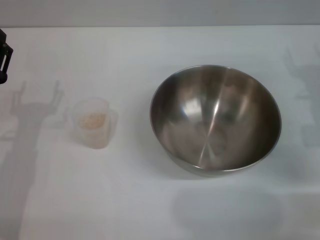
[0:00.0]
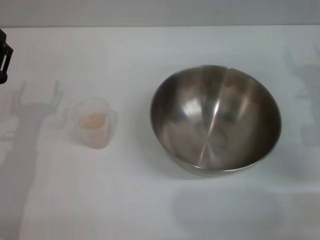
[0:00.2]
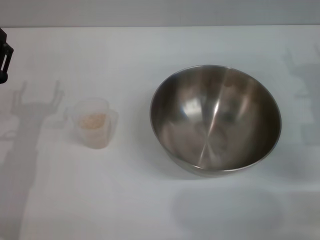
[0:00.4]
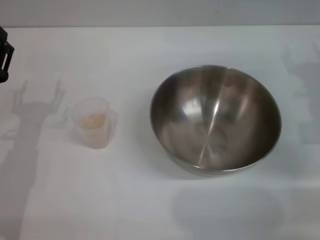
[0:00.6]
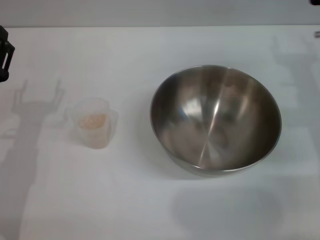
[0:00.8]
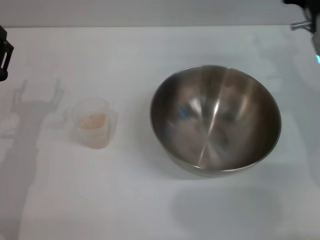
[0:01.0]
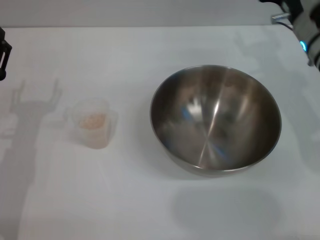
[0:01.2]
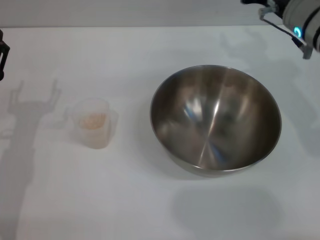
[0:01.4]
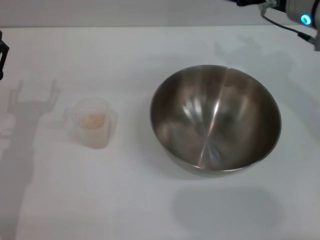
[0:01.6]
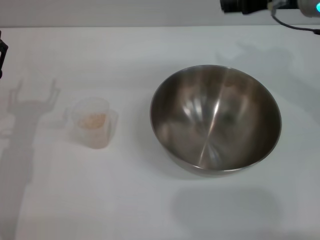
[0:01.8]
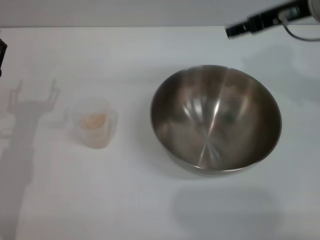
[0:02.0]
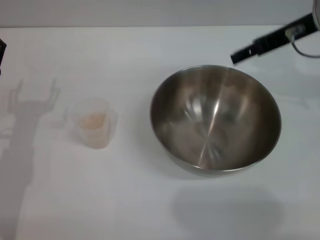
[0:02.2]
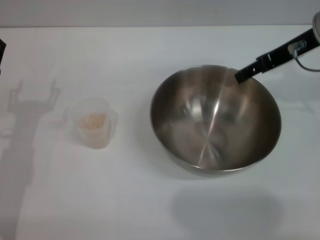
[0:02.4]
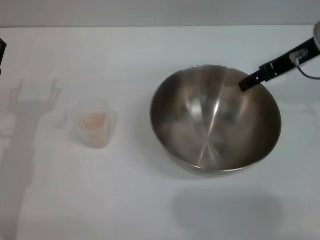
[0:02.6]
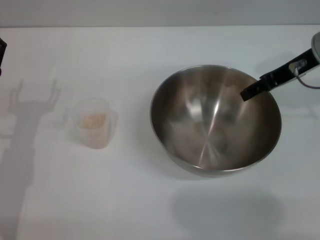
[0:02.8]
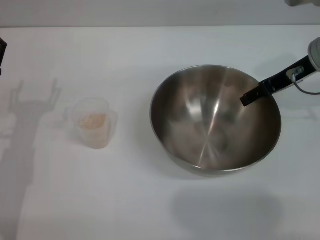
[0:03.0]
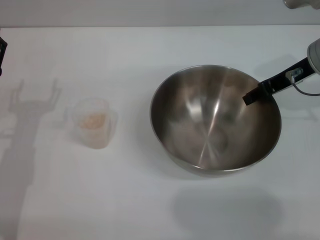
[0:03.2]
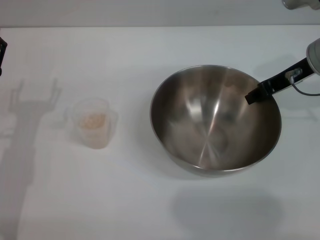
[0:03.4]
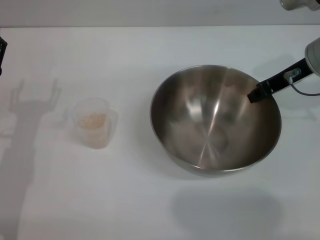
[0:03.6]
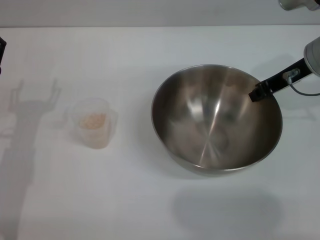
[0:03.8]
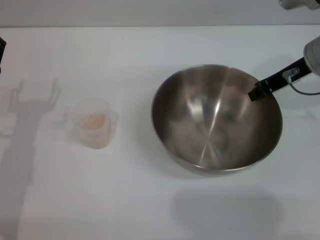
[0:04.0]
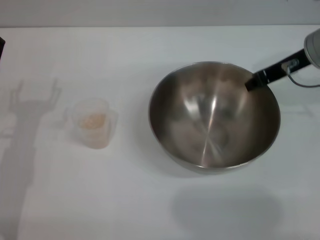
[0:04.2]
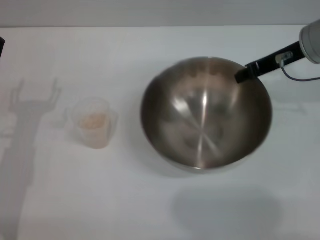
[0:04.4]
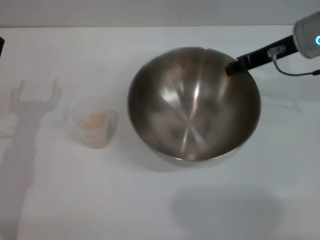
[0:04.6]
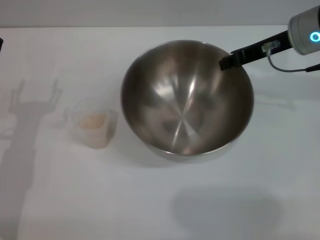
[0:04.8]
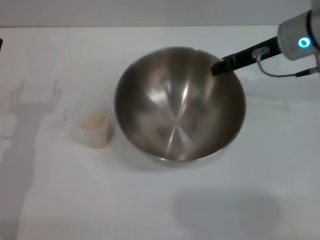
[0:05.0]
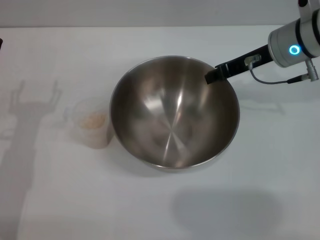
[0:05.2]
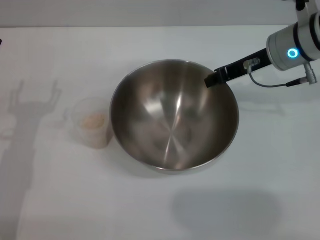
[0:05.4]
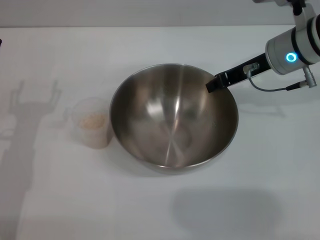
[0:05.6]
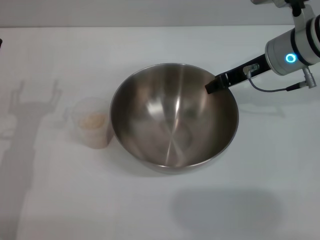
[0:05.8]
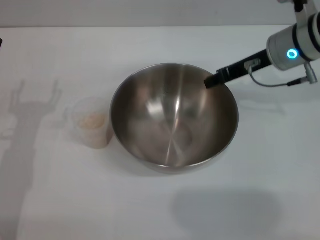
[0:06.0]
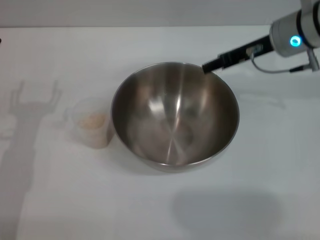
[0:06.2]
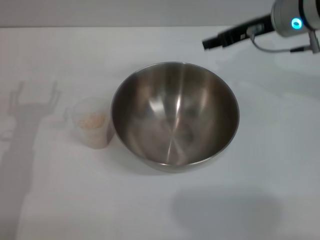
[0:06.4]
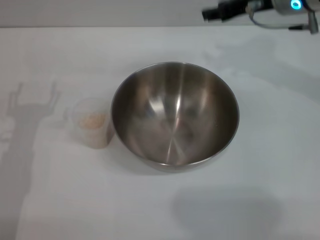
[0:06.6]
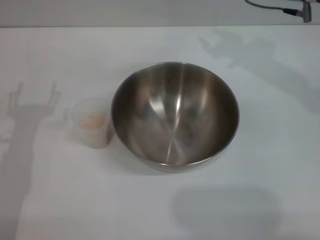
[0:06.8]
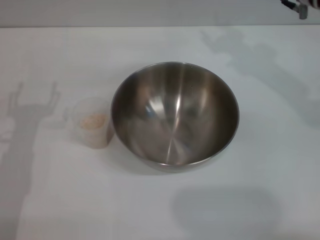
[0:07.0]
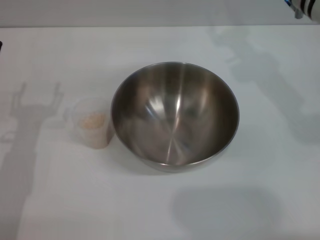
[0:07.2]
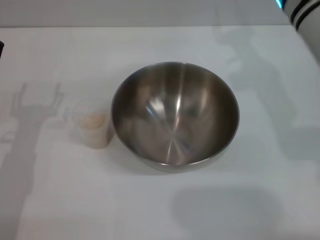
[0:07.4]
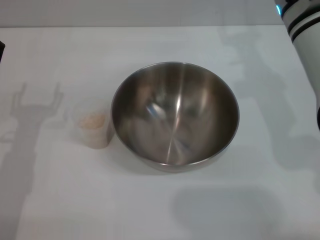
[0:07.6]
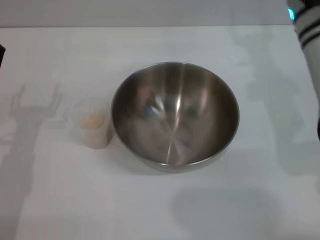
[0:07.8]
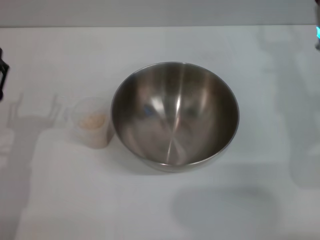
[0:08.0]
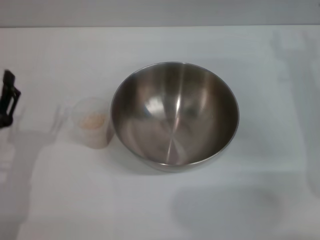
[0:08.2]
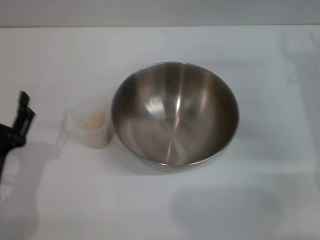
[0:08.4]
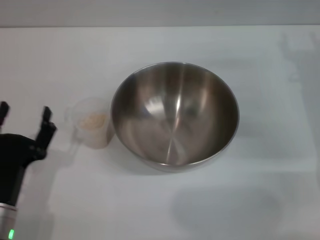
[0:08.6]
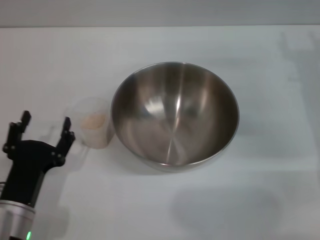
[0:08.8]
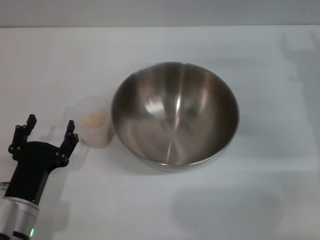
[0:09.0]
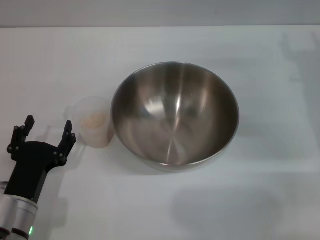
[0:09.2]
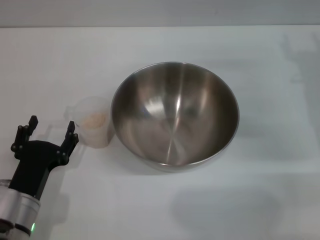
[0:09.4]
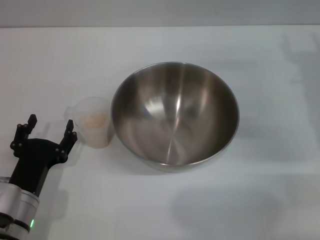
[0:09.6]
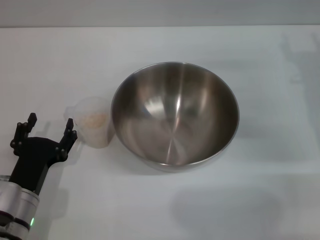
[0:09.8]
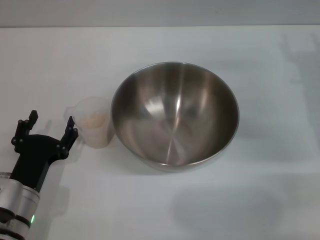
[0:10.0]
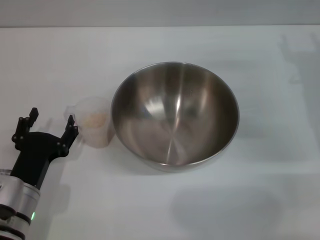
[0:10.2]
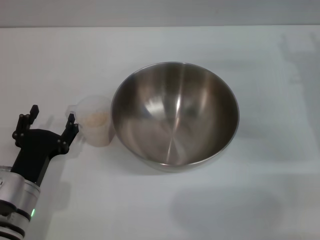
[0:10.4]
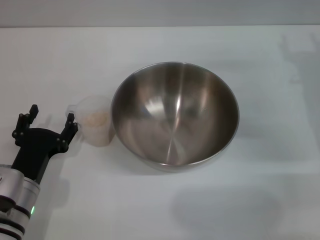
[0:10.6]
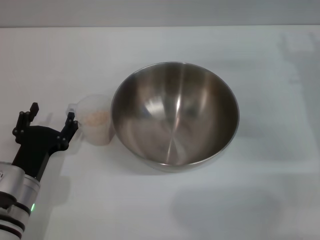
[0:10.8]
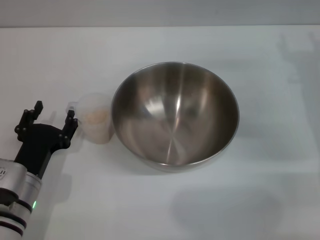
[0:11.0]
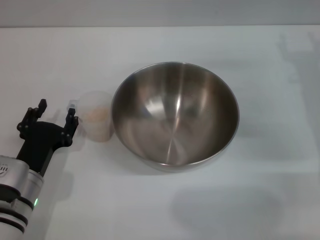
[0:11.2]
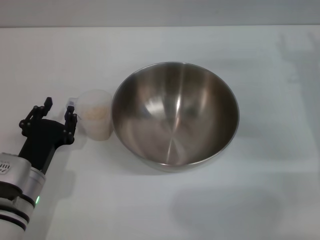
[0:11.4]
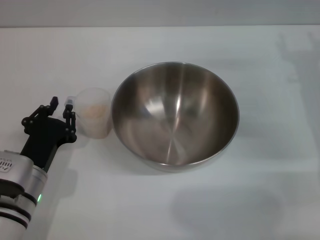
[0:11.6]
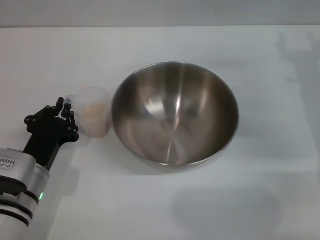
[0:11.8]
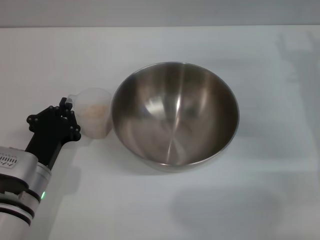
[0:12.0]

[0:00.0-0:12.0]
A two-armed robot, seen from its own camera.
Task of the whole recording: Place the bowl in the middle of the table with one hand and pour the rice from the grain cup into it with the other hand.
Step, 0:00.0 to 0:04.4: Pick up the bowl with the right gripper.
Step, 0:04.8 to 0:06.2: Place the bowl in the center of view with the right gripper.
0:00.0 to 0:01.6: The right gripper goes approximately 15 cm upward, to the left and forward.
0:01.6 to 0:03.0: The right gripper ends up approximately 5 cm from where it was.
0:03.0 to 0:04.4: The right gripper closes.
0:06.0 to 0:07.6: The right gripper changes place by approximately 5 cm, and opens.
0:07.6 to 0:09.0: The left gripper goes some 10 cm backward, downward and to the right. Meanwhile the right gripper goes roughly 15 cm to the right and downward, and opens up.
0:09.0 to 0:10.4: The grippers move only a little.
0:10.4 to 0:12.0: The left gripper closes.

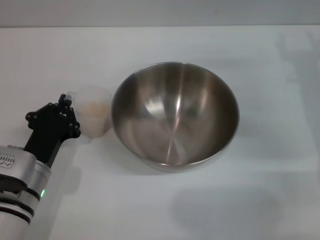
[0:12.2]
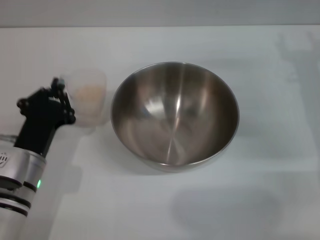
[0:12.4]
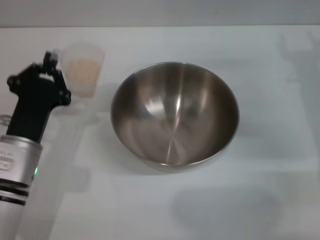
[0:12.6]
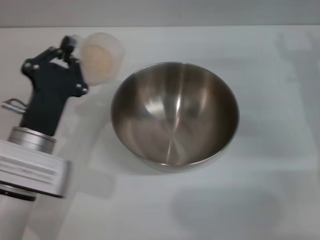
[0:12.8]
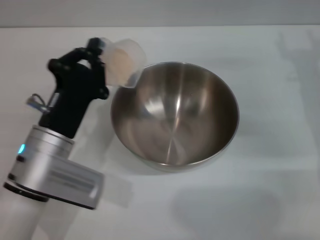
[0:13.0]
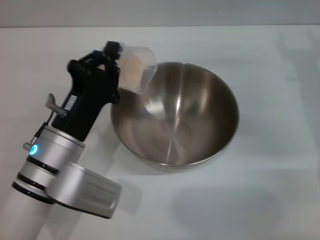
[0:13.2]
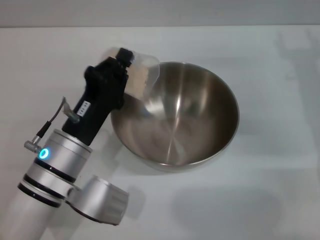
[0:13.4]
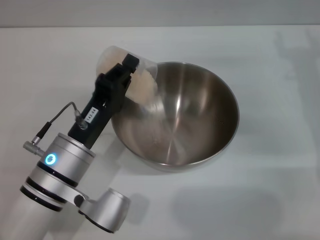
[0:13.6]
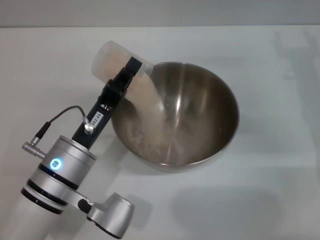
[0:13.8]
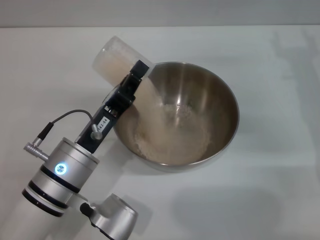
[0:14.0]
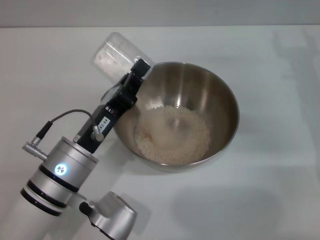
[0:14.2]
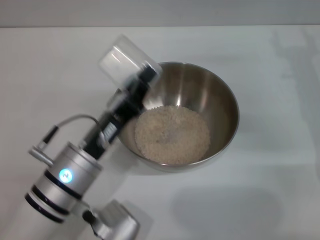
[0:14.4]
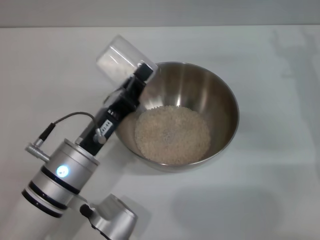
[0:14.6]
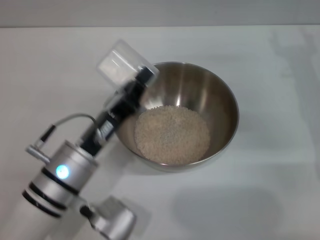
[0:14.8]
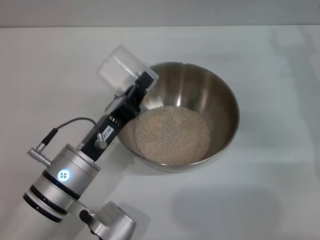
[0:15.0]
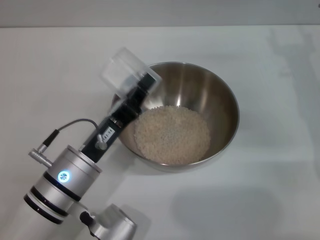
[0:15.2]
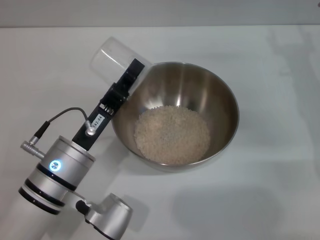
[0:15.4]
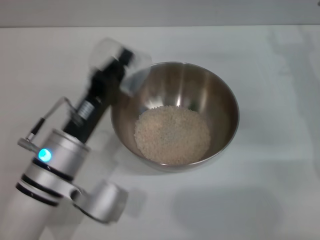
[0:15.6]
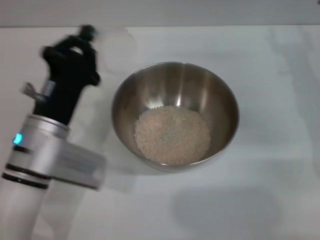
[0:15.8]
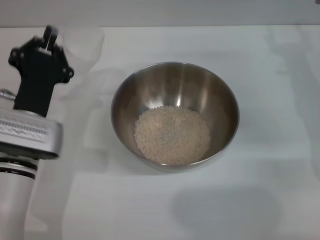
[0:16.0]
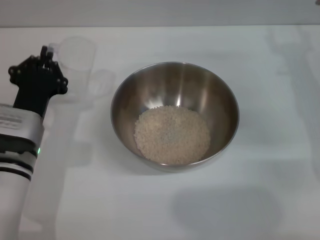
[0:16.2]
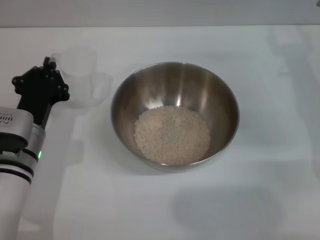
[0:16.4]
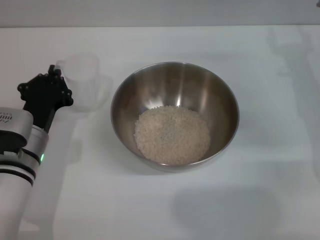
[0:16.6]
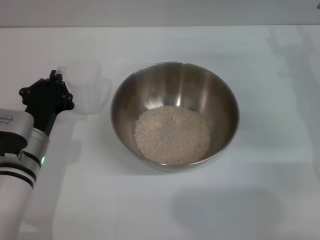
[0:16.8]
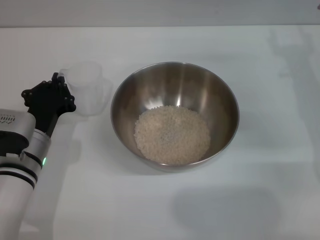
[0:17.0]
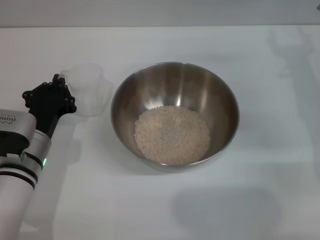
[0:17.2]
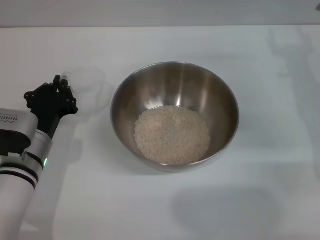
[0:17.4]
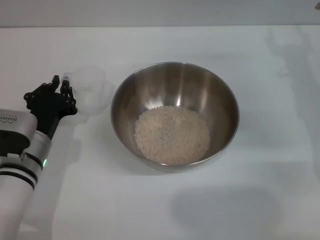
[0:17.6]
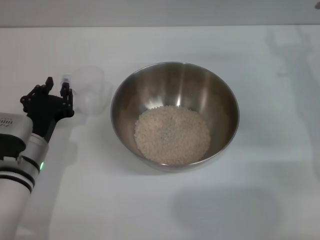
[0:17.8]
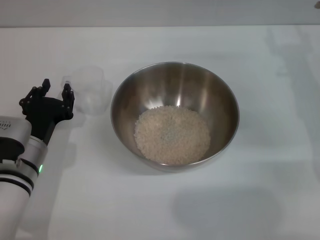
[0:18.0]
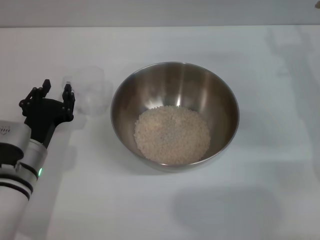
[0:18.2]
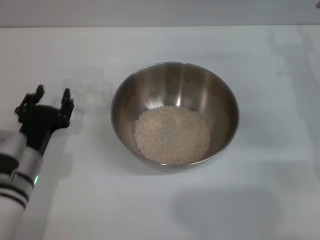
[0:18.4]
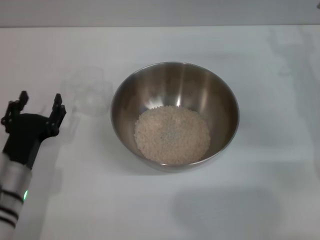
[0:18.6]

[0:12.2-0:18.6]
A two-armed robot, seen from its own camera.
Task of the whole recording: Place the bowl in the middle of the table with one hand and pour the rice from the grain cup into it with the other hand.
Step, 0:12.4 to 0:15.4: Pour the rice from the cup into the bowl with the left gripper.
Step, 0:15.6 to 0:18.4: Place the cup on the table with the left gripper.
0:12.2 to 0:13.8: The left gripper moves to the right, about 5 cm.
0:13.8 to 0:15.4: The grippers stay close to where they were, moving slightly.
0:15.4 to 0:17.0: The left gripper moves to the left, roughly 5 cm.
0:17.0 to 0:18.6: The left gripper is displaced backward by about 5 cm, and opens its fingers.

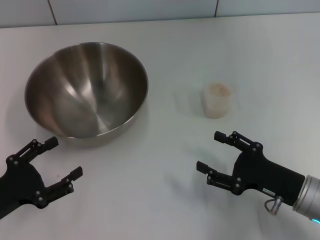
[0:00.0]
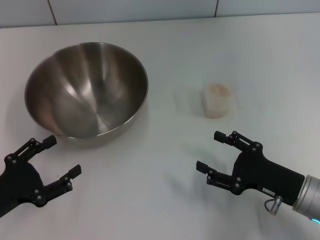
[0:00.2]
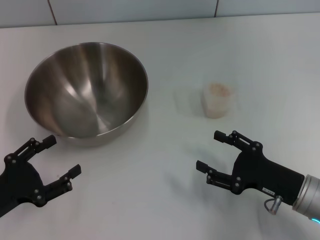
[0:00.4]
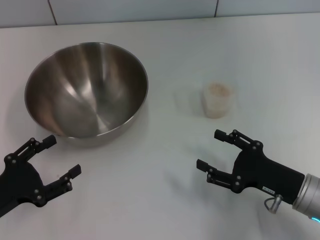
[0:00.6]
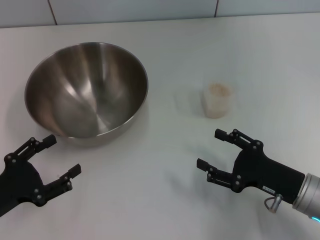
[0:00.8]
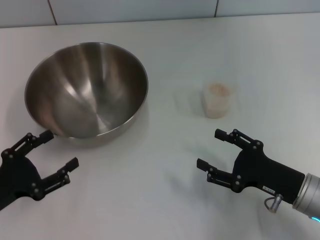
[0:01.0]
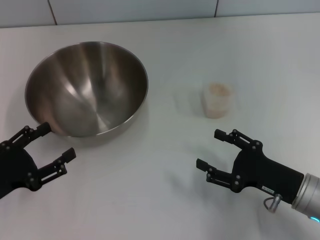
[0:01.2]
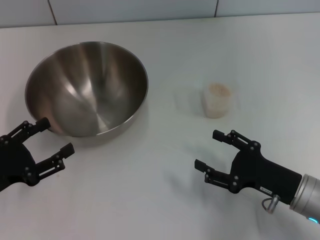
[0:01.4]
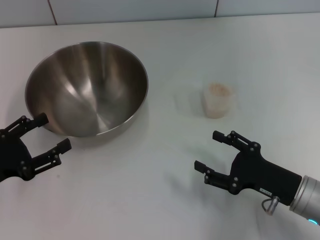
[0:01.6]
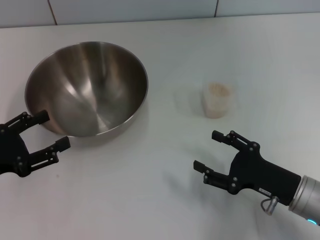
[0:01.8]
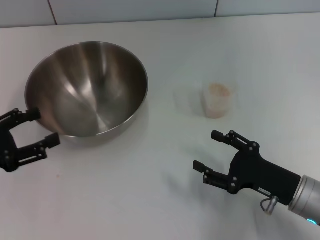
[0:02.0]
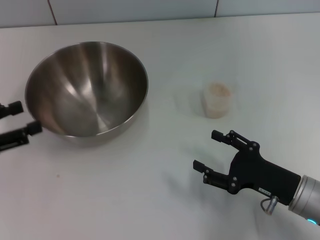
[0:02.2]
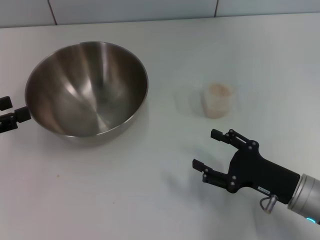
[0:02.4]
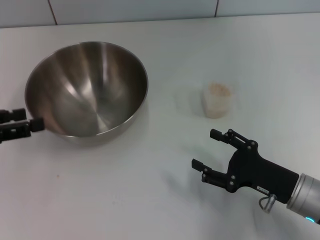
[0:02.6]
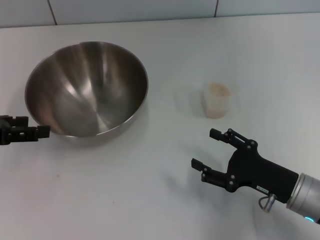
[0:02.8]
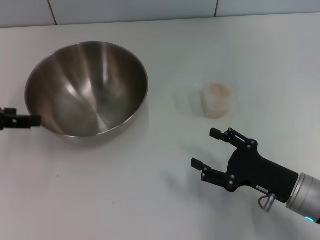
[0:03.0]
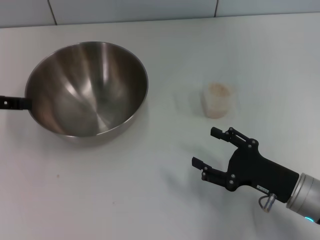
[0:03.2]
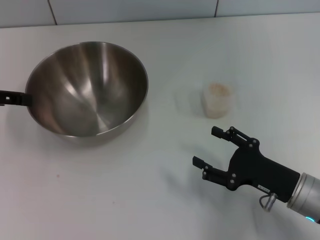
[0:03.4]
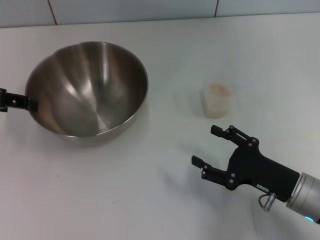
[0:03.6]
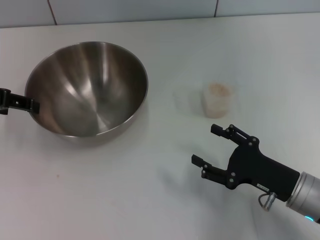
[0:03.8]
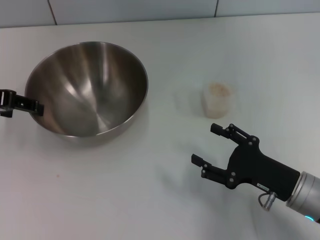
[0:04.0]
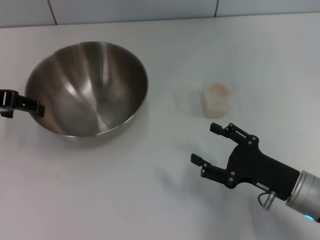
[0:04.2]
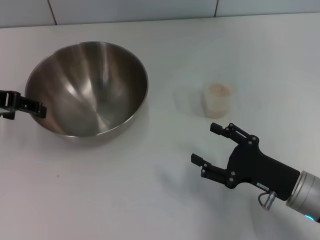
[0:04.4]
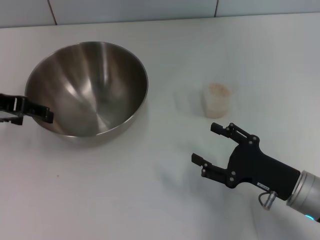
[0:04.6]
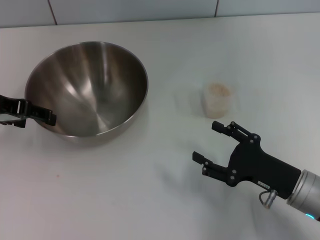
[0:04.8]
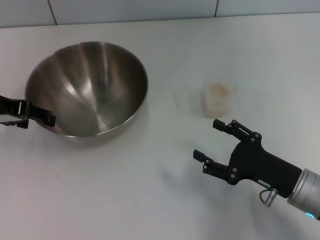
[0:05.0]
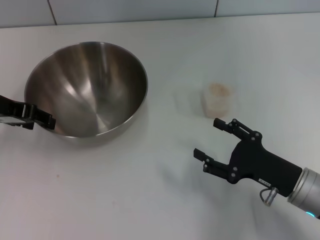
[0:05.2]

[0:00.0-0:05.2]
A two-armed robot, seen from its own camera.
Task of the whole recording: Place the bowl in the middle of the table with one hand and pour the rice from the grain cup into it with the other hand.
0:00.0 to 0:01.8: The left gripper ends up roughly 5 cm from where it was.
0:01.8 to 0:03.4: The left gripper goes about 15 cm upward and forward.
0:03.4 to 0:05.2: The left gripper moves some 5 cm.
